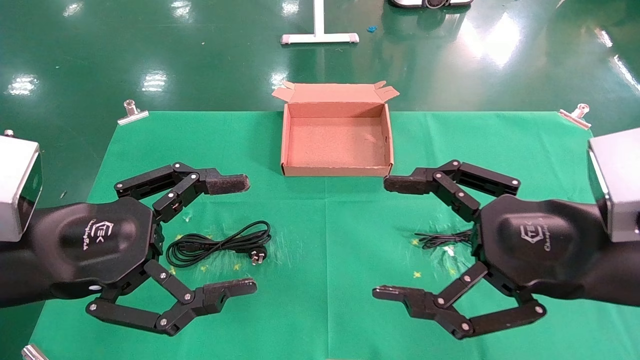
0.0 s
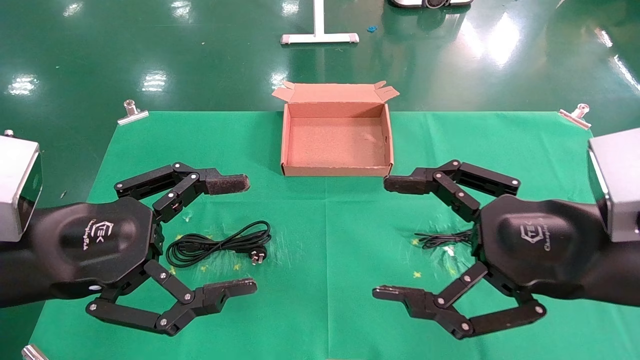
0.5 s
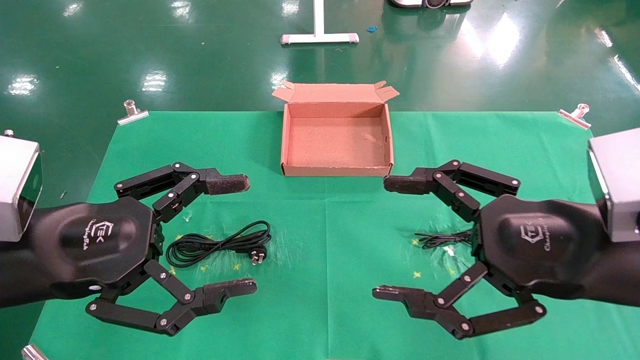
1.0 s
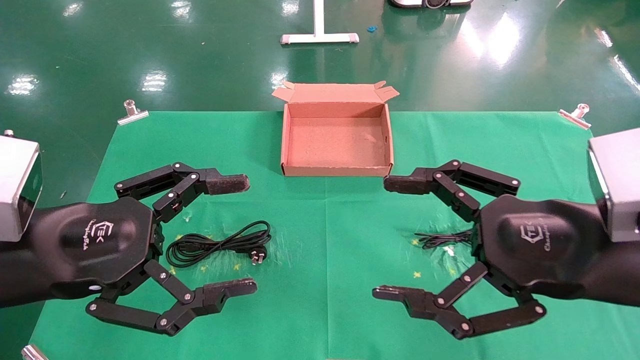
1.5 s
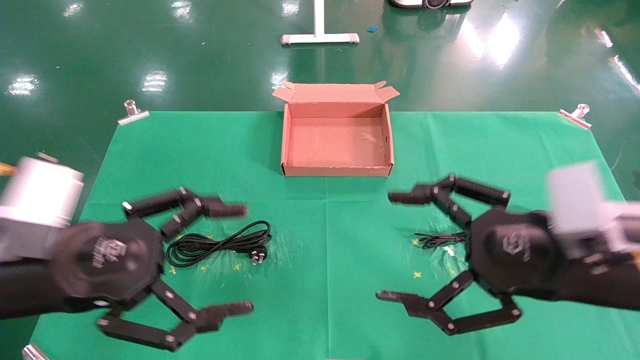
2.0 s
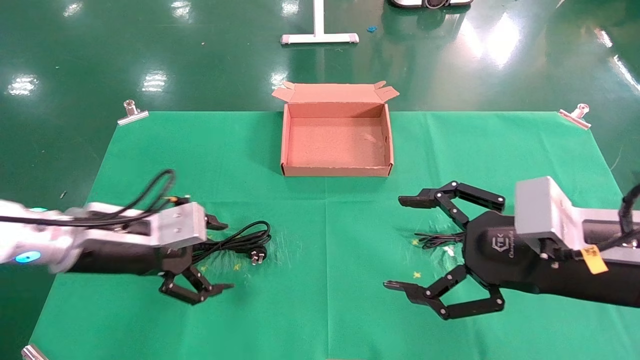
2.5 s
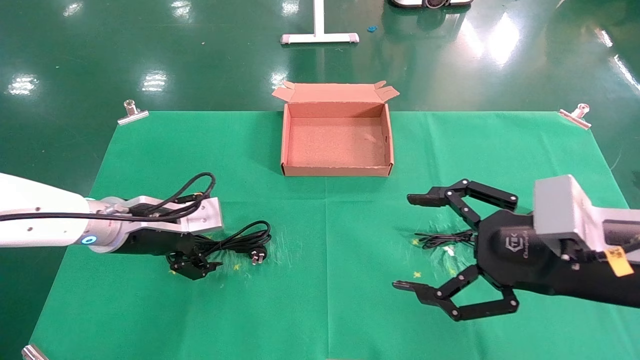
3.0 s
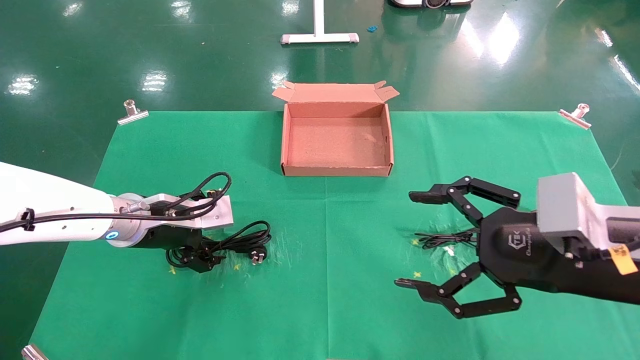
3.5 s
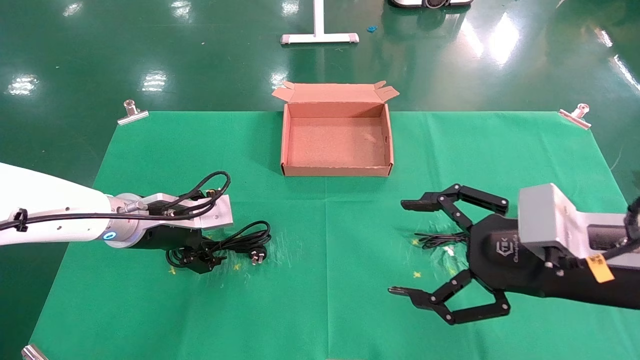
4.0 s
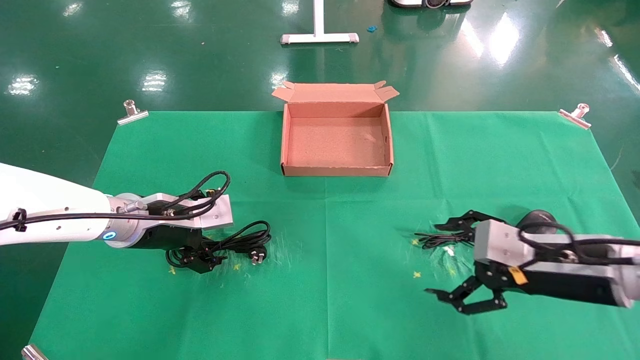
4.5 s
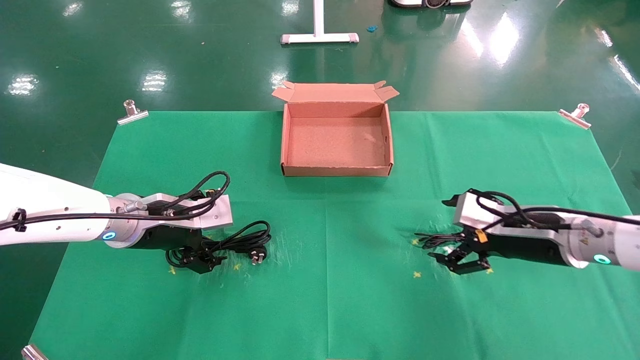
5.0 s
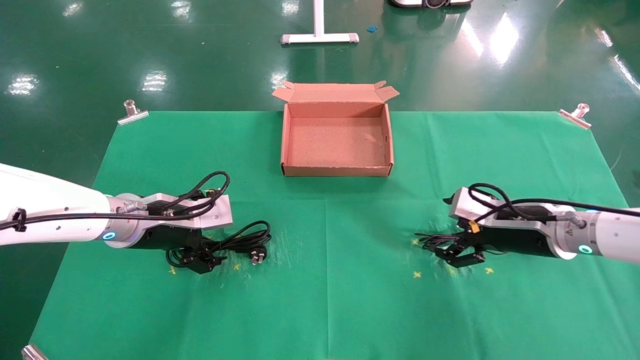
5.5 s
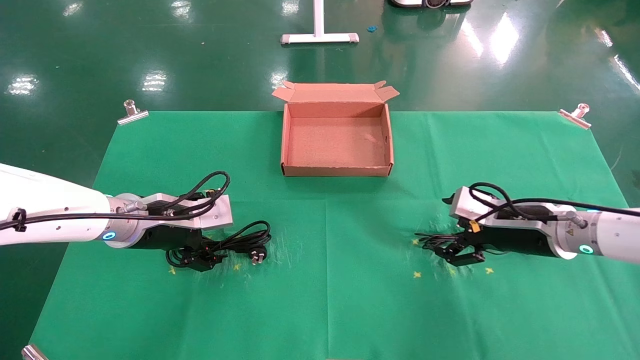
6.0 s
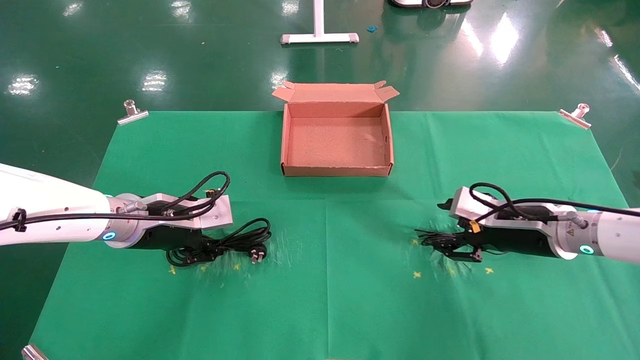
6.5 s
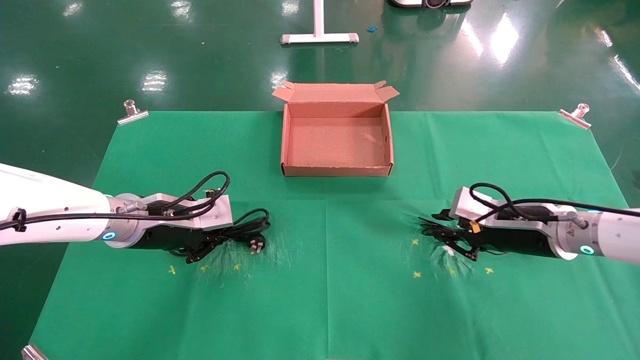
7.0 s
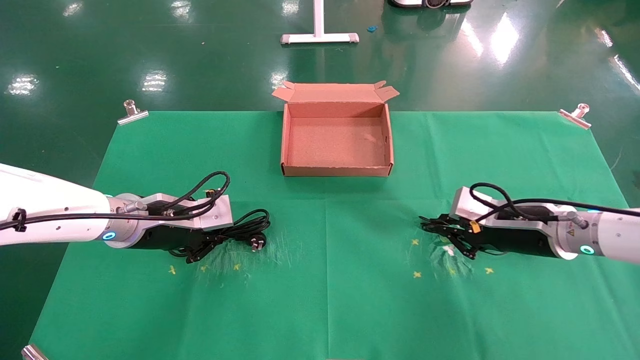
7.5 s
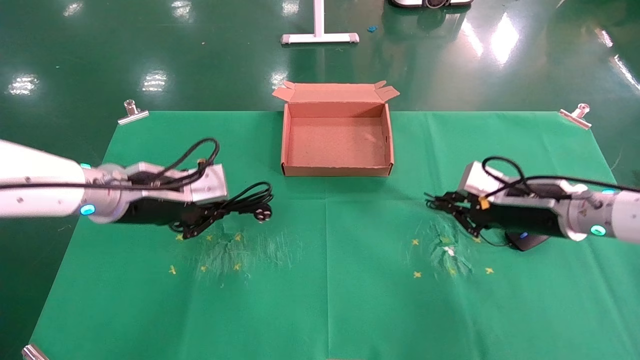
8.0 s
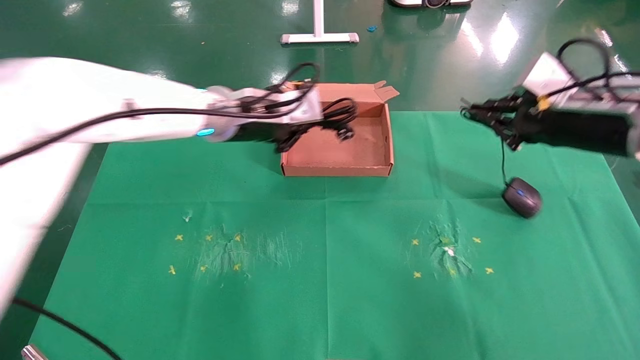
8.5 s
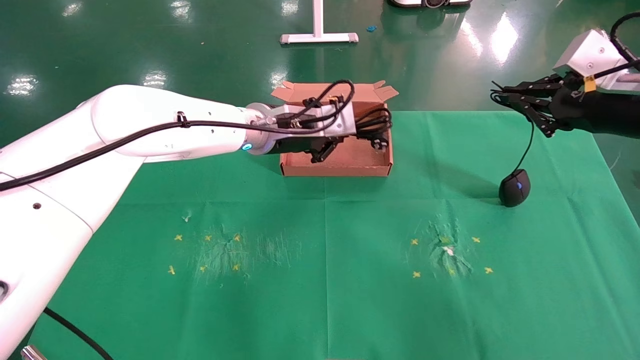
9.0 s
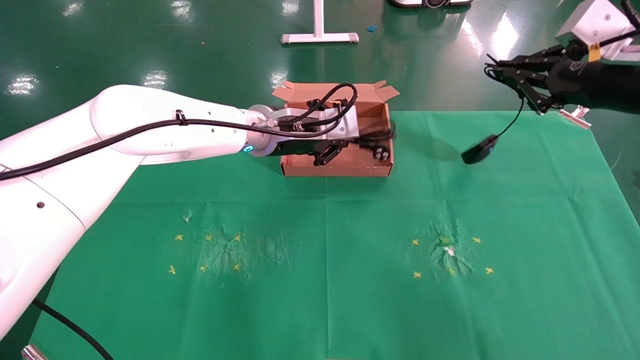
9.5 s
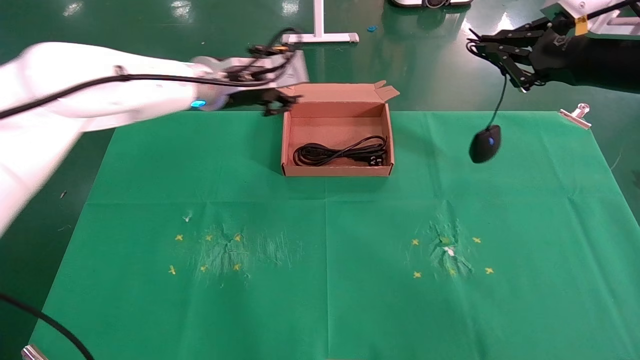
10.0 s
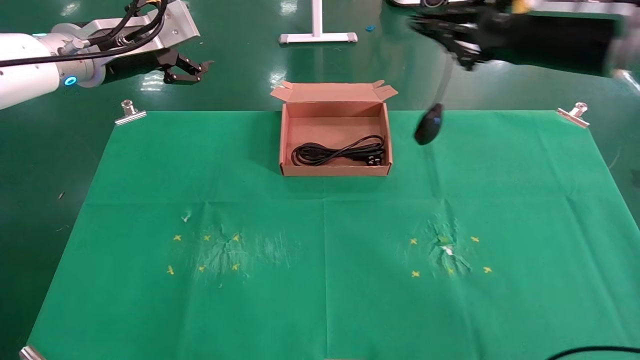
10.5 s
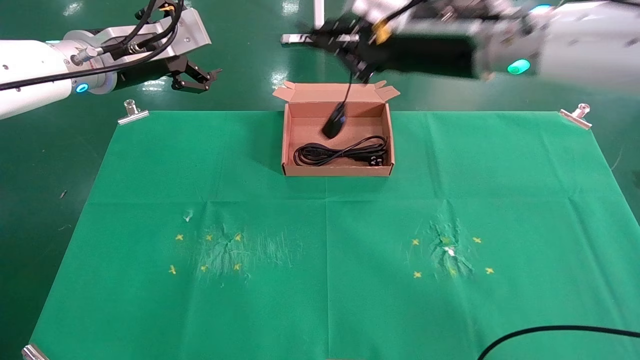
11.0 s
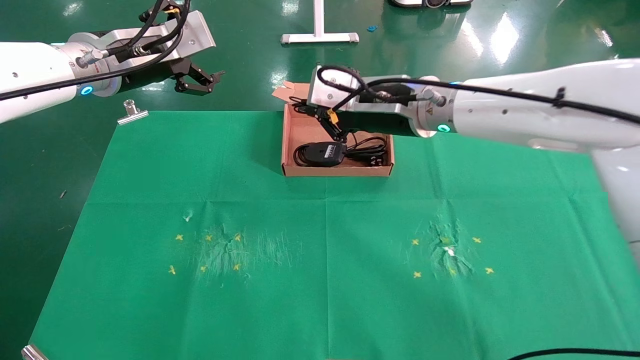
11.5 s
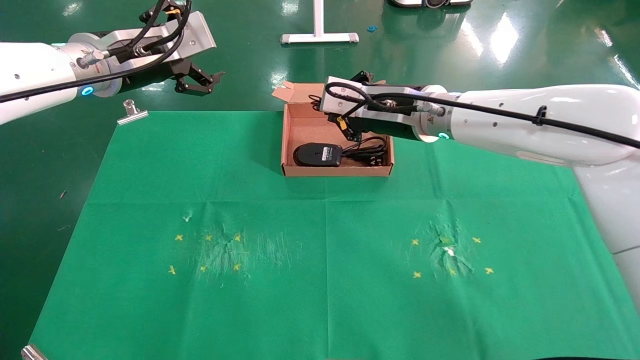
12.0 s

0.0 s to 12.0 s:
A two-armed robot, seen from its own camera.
Task of the whole recording: grasp data cable left put into box grasp mouse right put into box.
Step, 2.5 to 7.5 s: Simultaneously pick up the mouse and power cord from the accessory packaging area.
2.0 to 4.0 s: The left gripper travels forward by approximately 15 cm.
4.0 to 6.0 s: The right gripper goes some 15 cm forward and downward.
6.0 to 8.0 s: The right gripper closes up, while the left gripper moves upward, about 5 cm, and closes.
8.0 to 10.0 s: The right gripper shifts about 20 cm upward. The left gripper is displaced forward, upward and to the right by some 15 cm, and opens up.
10.0 to 12.0 s: The right gripper heads to the left and forward, covering about 25 cm, while the left gripper shifts approximately 10 cm to the left, and opens up.

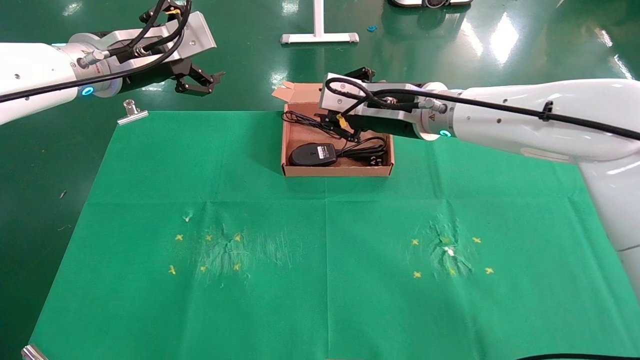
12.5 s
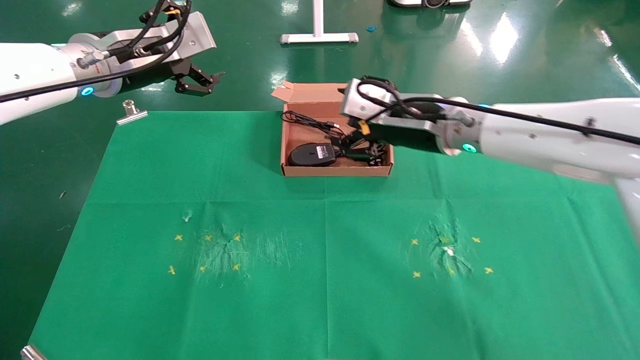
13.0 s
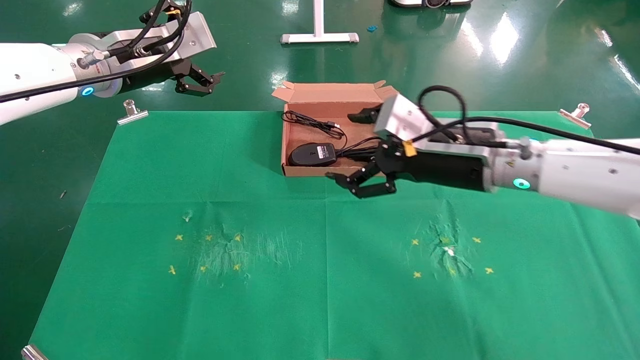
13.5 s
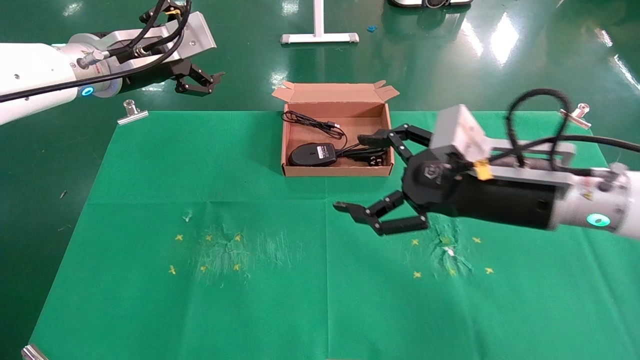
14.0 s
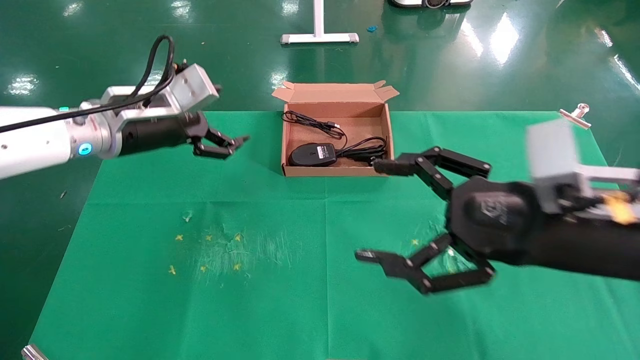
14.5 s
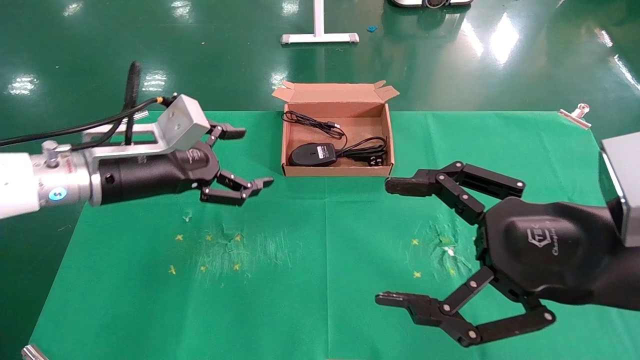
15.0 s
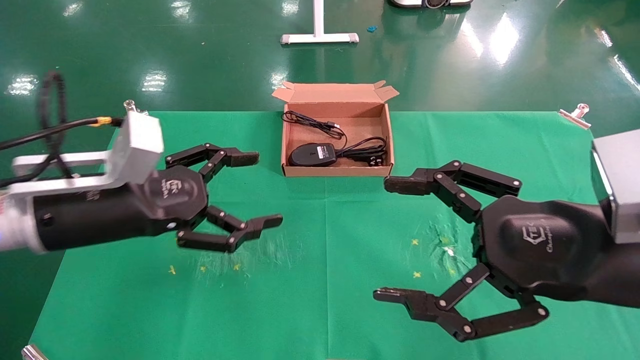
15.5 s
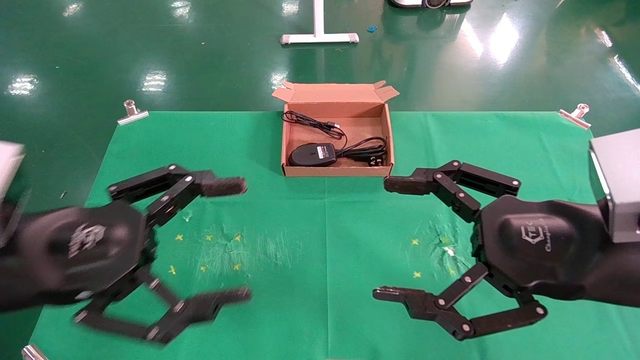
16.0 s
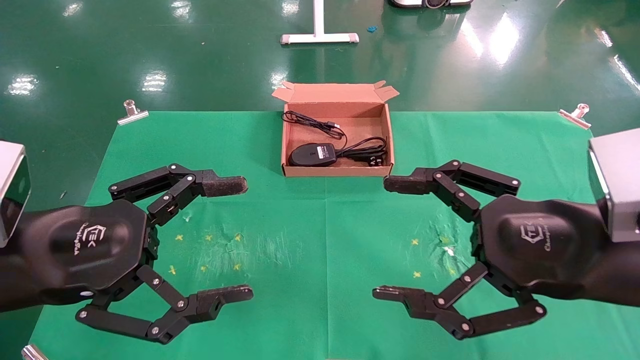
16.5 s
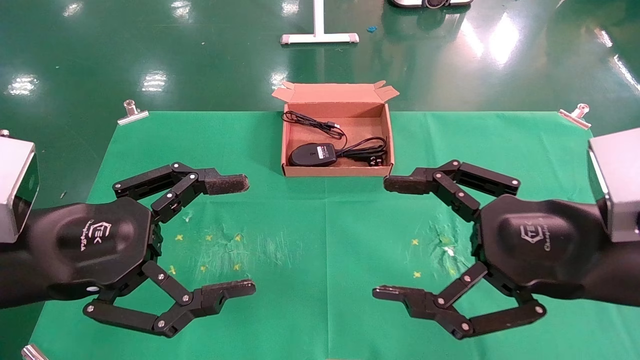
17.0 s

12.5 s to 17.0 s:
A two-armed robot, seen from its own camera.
Task of the whole recording: grasp data cable left put into box grasp mouse right put into box.
12.5 to 14.5 s: The right gripper moves backward and to the right, about 25 cm, and opens its fingers. Meanwhile the left gripper shifts approximately 10 cm downward.
14.5 to 17.0 s: The left gripper is displaced backward by approximately 20 cm.
